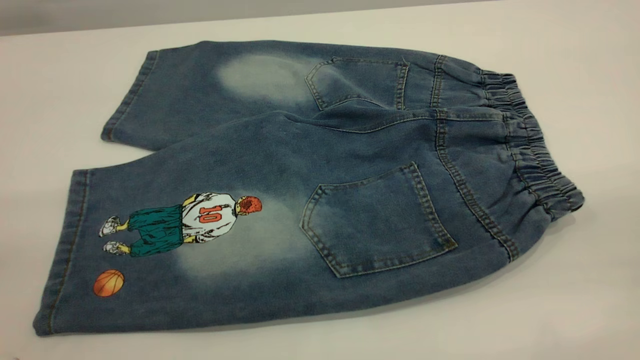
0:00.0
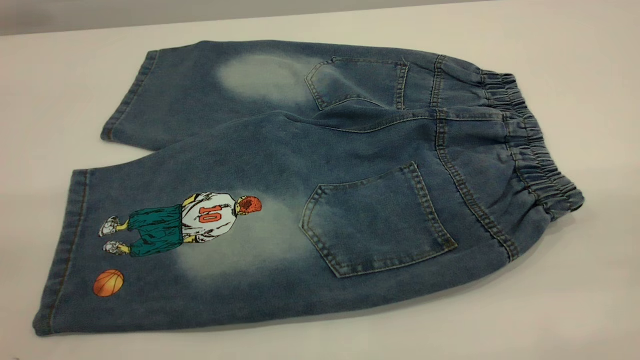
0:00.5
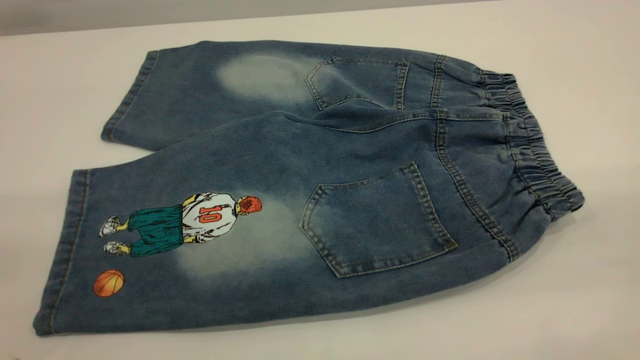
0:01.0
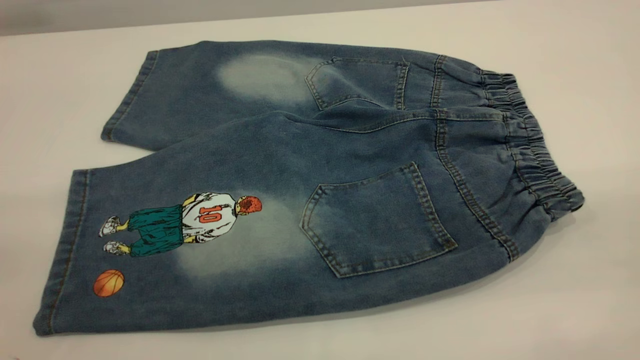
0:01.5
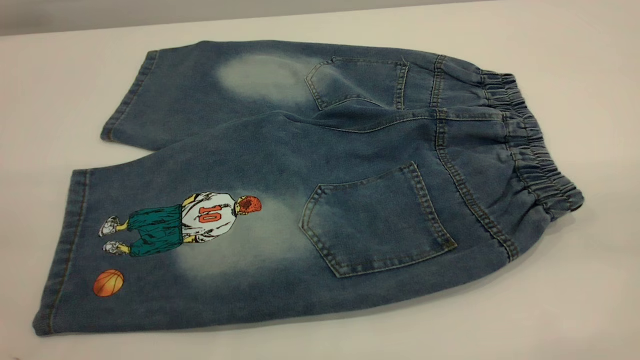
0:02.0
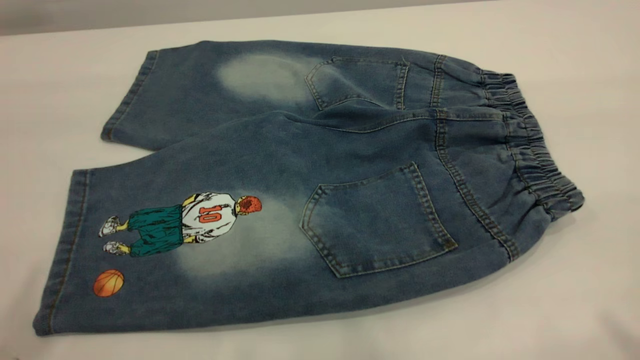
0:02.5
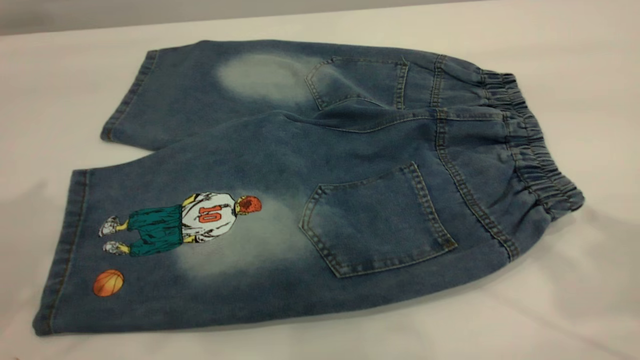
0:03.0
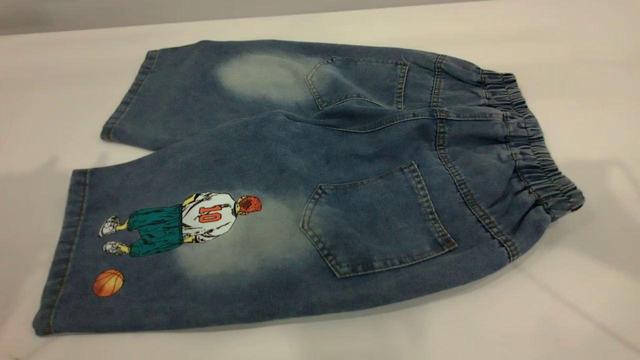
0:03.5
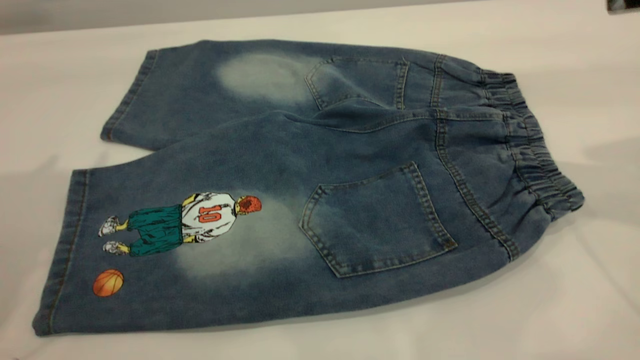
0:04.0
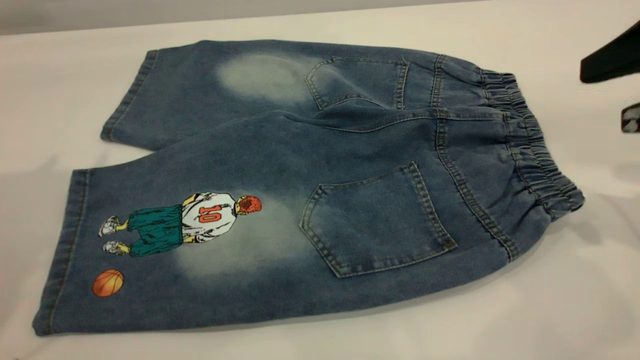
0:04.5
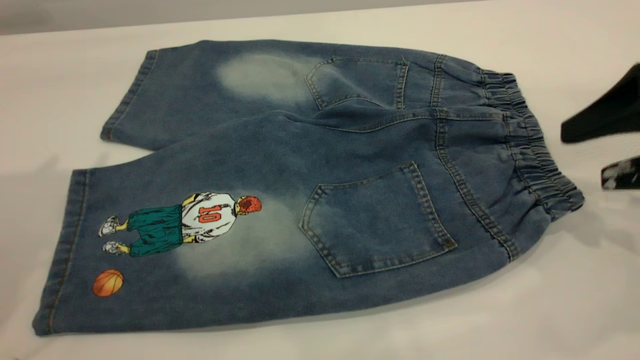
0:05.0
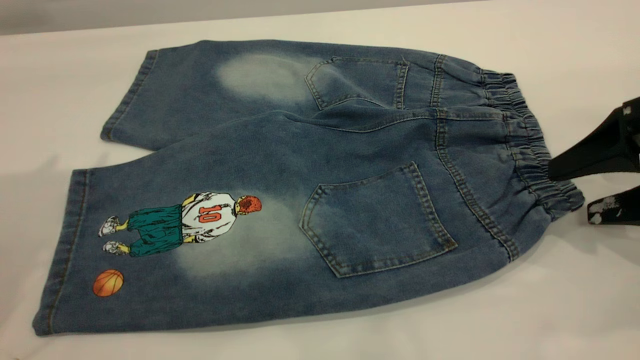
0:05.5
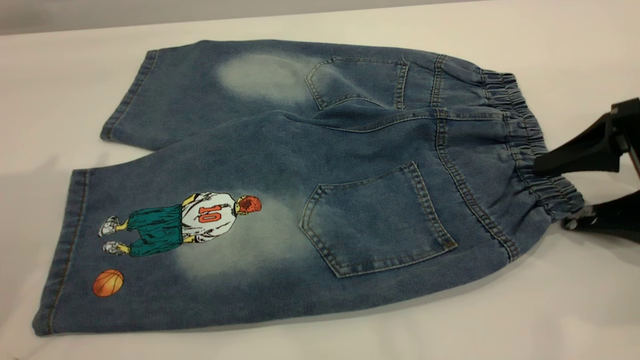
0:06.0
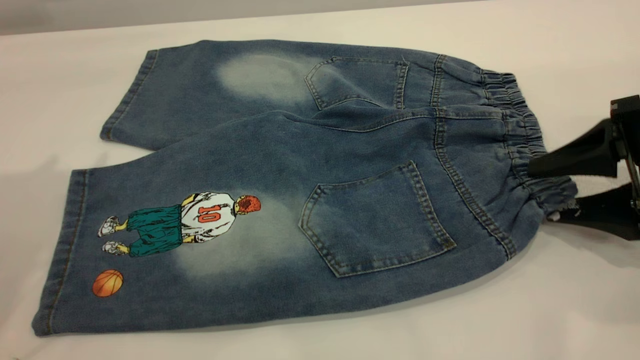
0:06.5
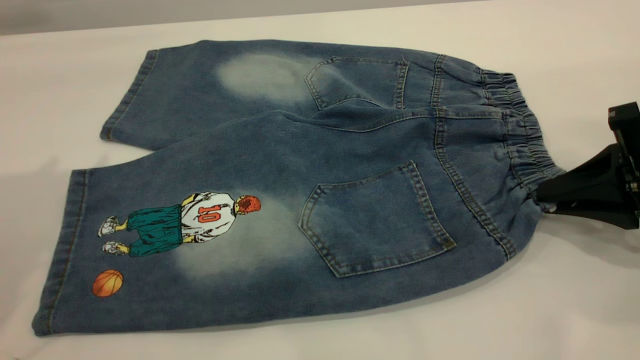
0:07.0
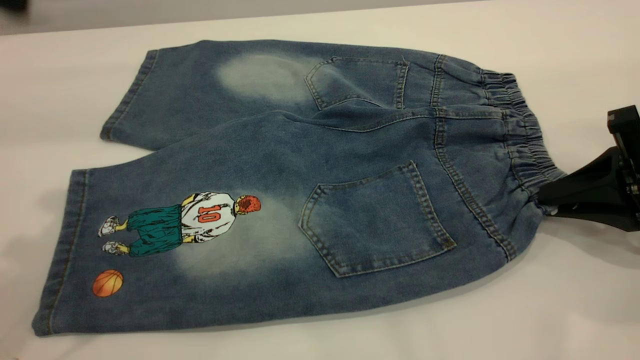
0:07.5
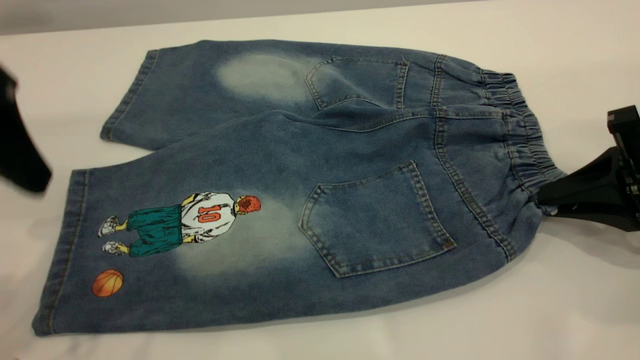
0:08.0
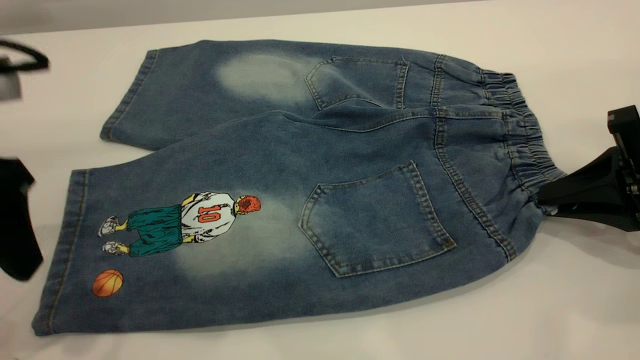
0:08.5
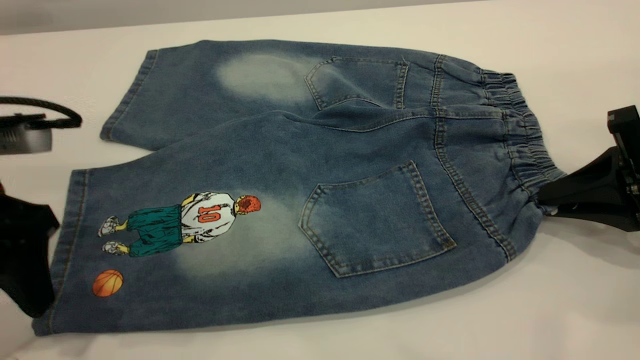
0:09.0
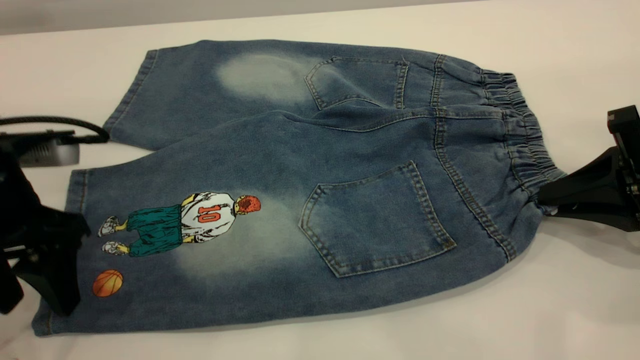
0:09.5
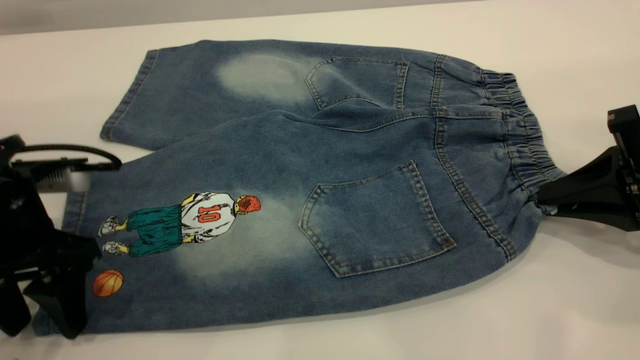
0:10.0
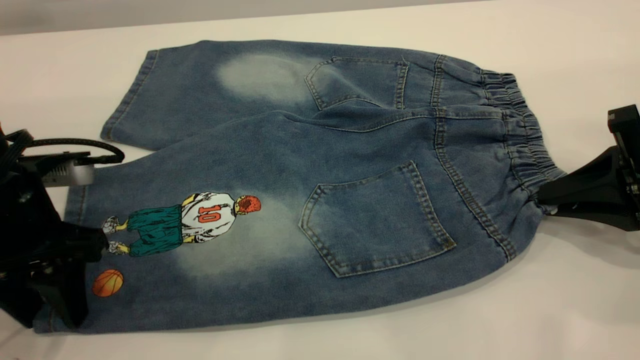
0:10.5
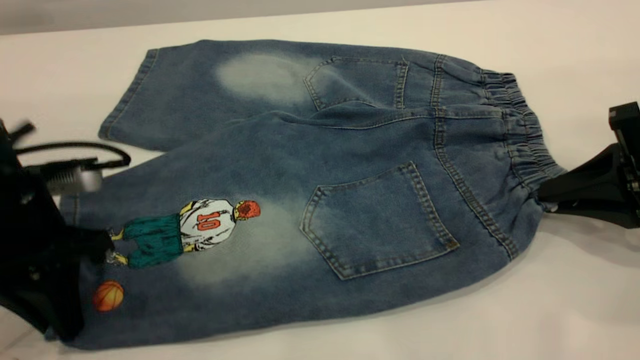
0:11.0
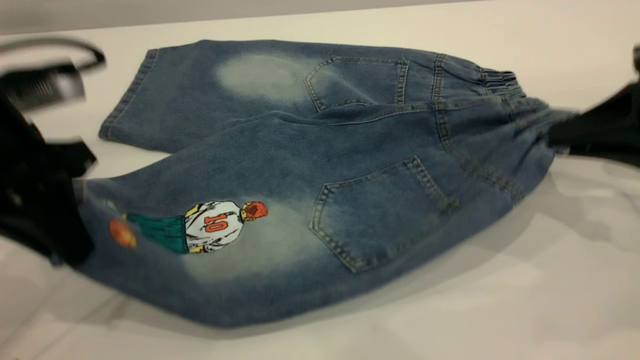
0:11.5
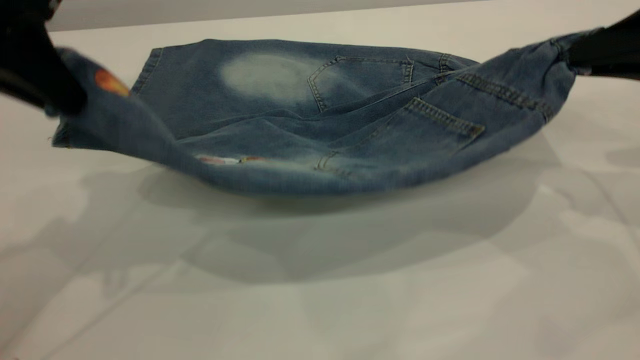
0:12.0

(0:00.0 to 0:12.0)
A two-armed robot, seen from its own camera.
0:04.0 - 0:06.0: The right gripper travels downward by approximately 20 cm.
0:06.0 - 0:08.0: The left gripper is displaced downward and backward by some 15 cm, while the right gripper closes its fingers.
0:08.0 - 0:10.0: The left gripper heads downward, covering roughly 15 cm.
0:10.0 - 0:12.0: The right gripper goes approximately 10 cm upward. The left gripper travels upward by about 15 cm, and closes its fingers.

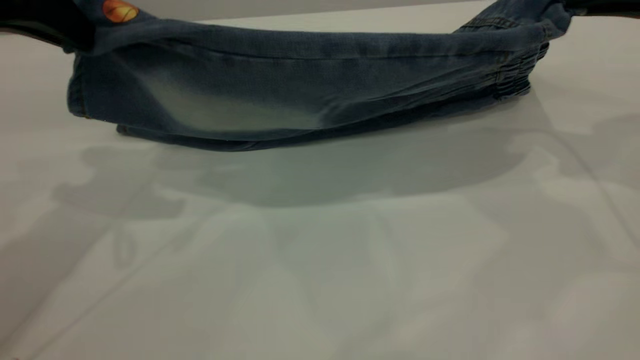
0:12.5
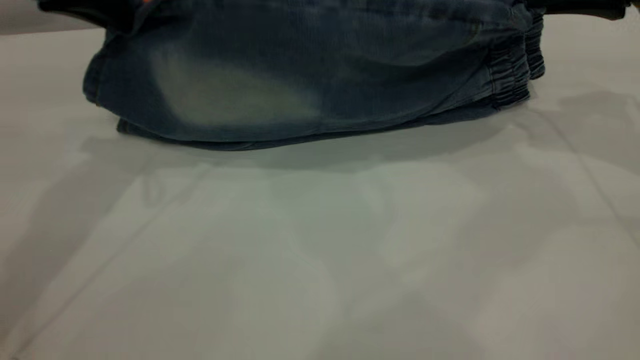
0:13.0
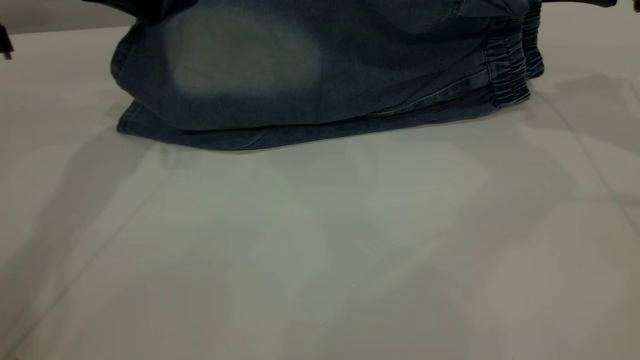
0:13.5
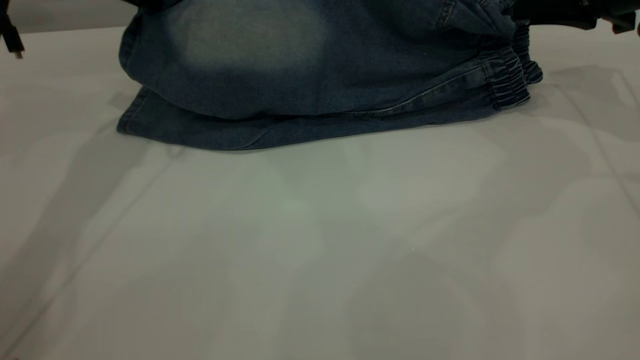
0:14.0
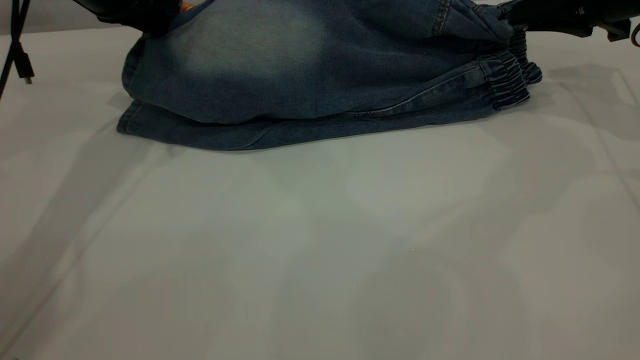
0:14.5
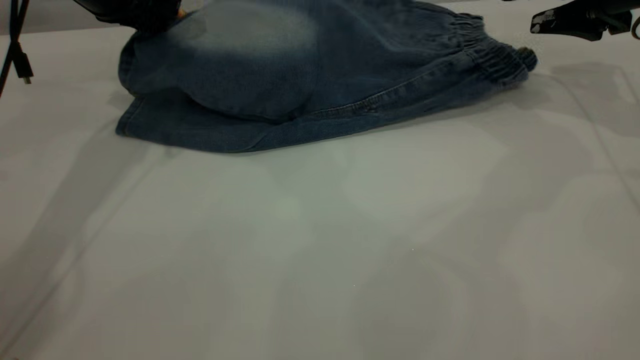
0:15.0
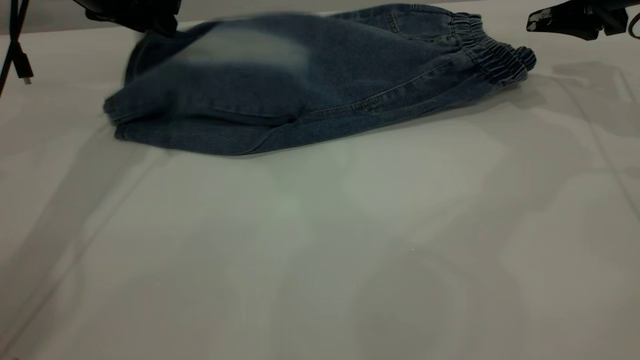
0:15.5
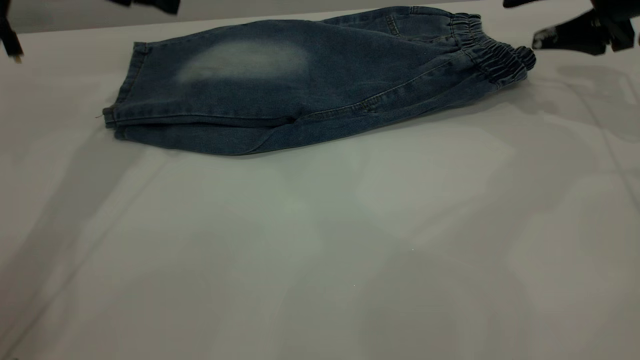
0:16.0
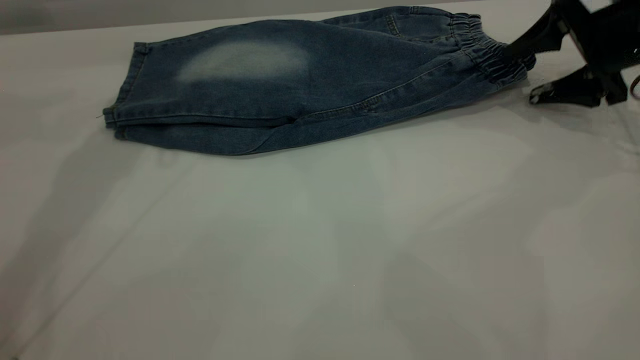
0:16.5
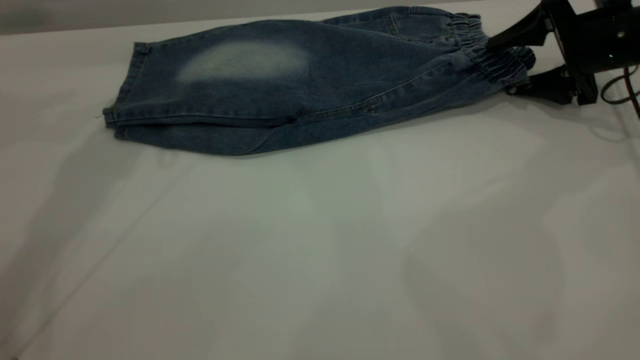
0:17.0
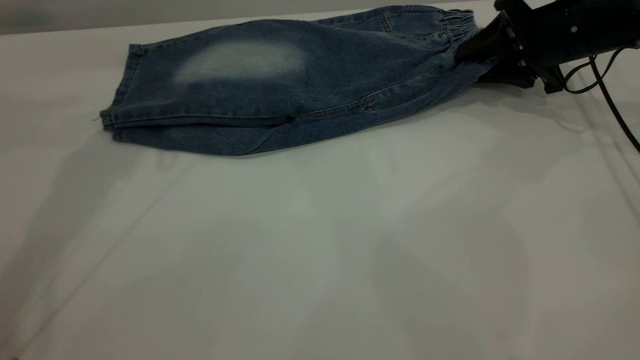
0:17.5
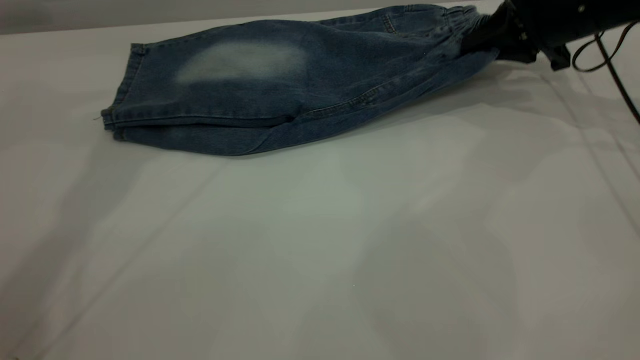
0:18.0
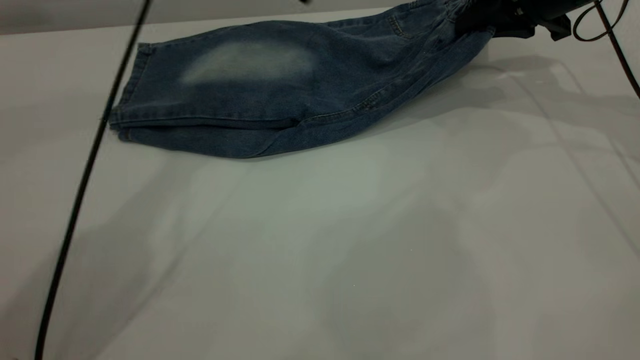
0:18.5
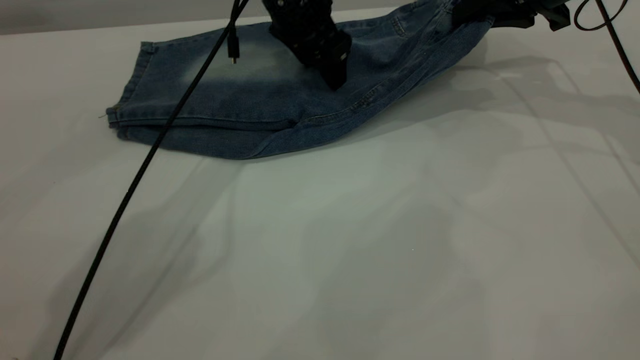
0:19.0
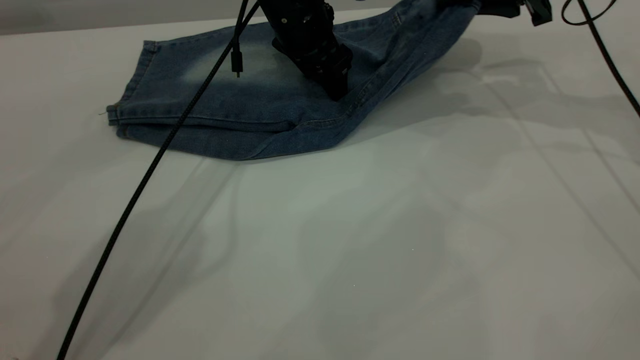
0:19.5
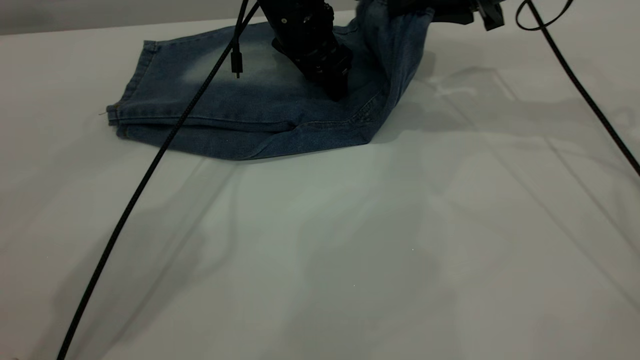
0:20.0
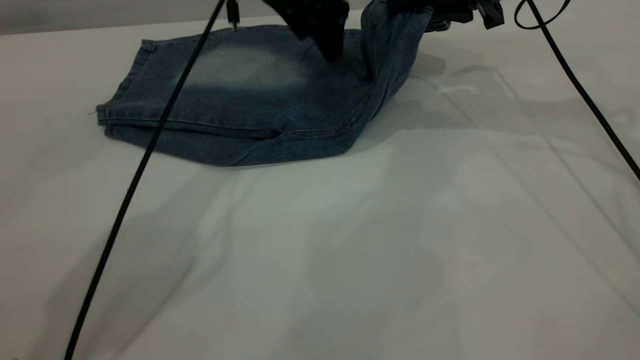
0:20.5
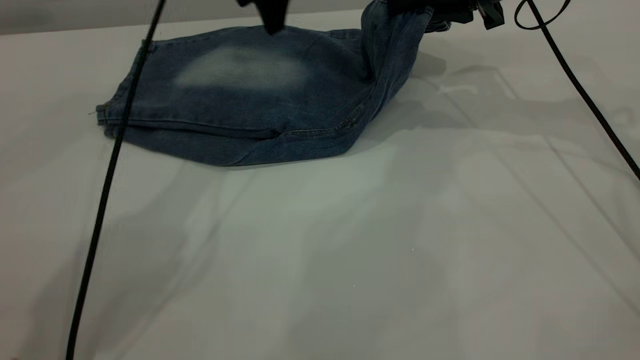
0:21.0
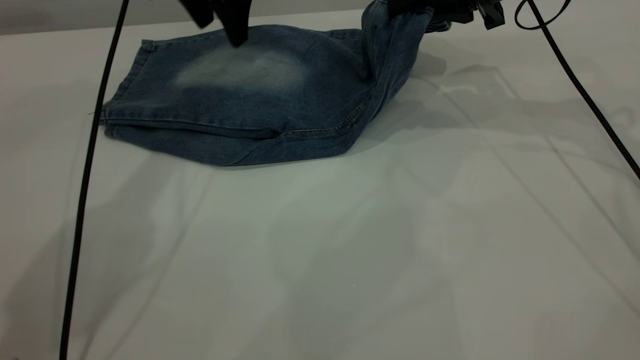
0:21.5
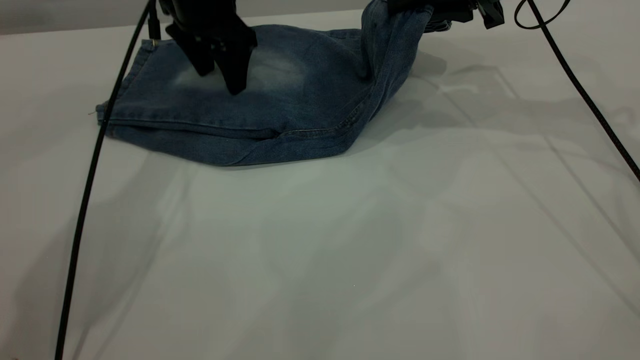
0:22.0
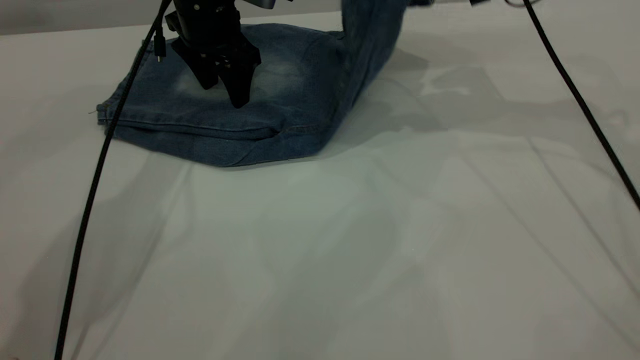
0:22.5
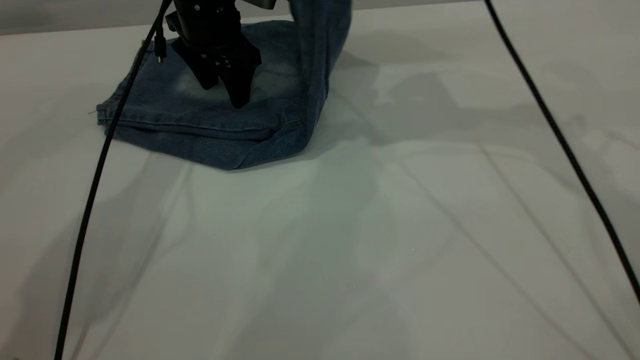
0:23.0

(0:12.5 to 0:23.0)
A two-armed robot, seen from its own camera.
Step, 0:12.5 - 0:15.5: Fold the bottom of the pants upward.
0:12.5 - 0:14.5: The grippers both shift forward and downward by about 15 cm.
0:14.5 - 0:16.5: The left gripper goes about 10 cm upward, and opens up, while the right gripper opens.
0:16.5 - 0:19.0: The left gripper shifts roughly 20 cm to the right and downward; the right gripper is displaced to the left and upward by some 10 cm, and closes its fingers.
0:19.0 - 0:21.0: The left gripper heads upward, covering approximately 10 cm. The right gripper is displaced to the left by approximately 5 cm.
0:21.0 - 0:23.0: The right gripper travels to the left and upward by roughly 10 cm. The left gripper shifts some 10 cm downward.
